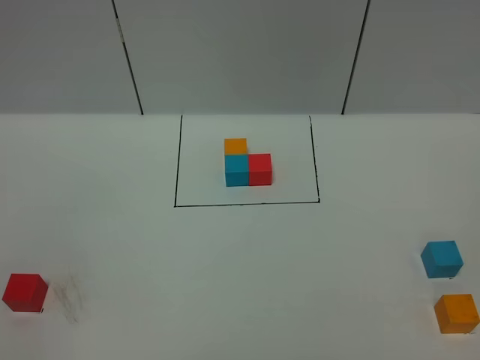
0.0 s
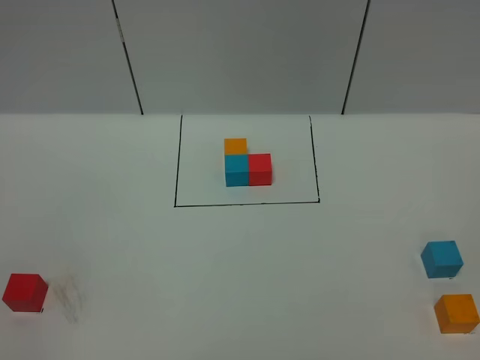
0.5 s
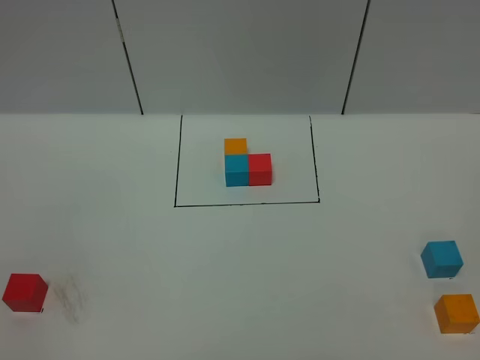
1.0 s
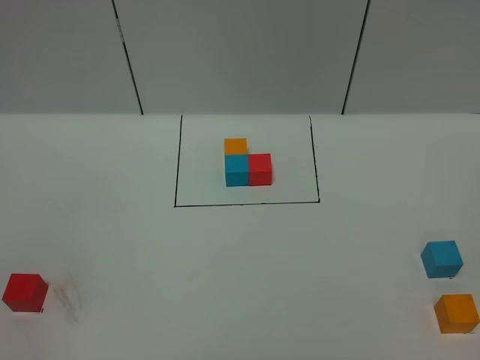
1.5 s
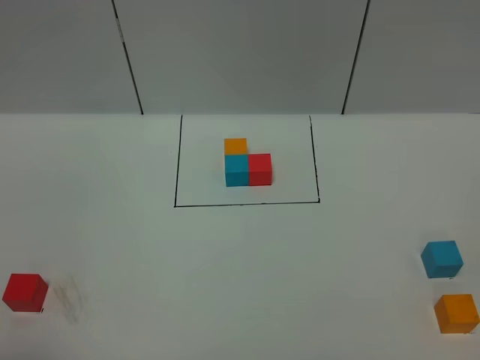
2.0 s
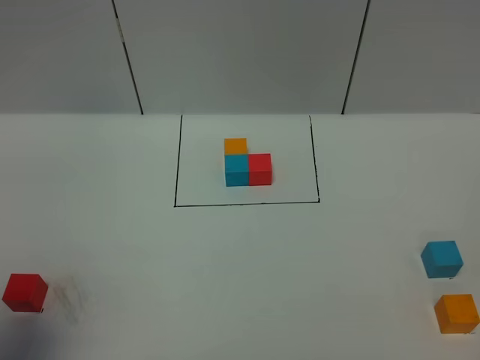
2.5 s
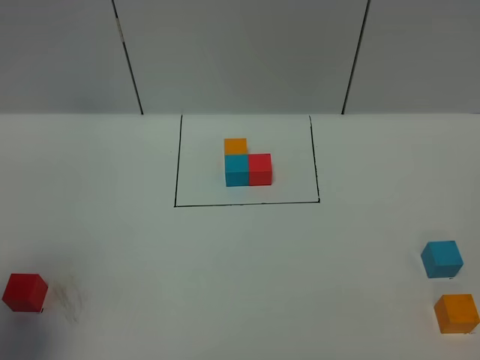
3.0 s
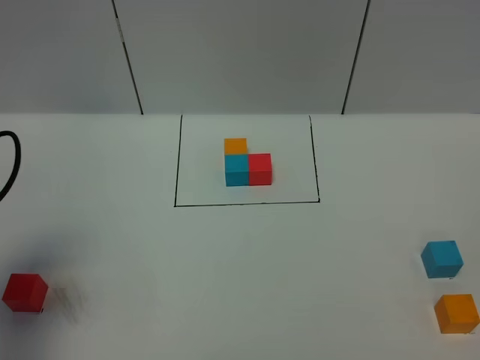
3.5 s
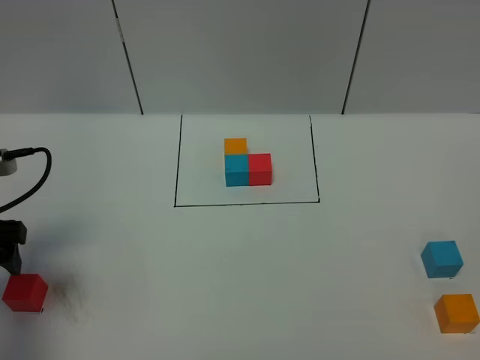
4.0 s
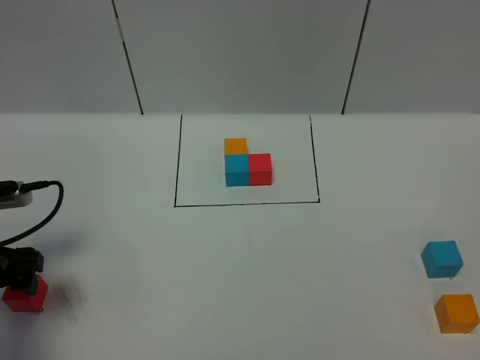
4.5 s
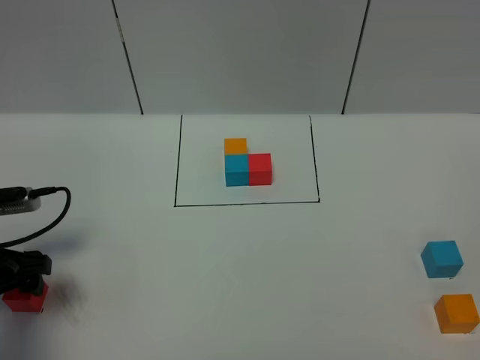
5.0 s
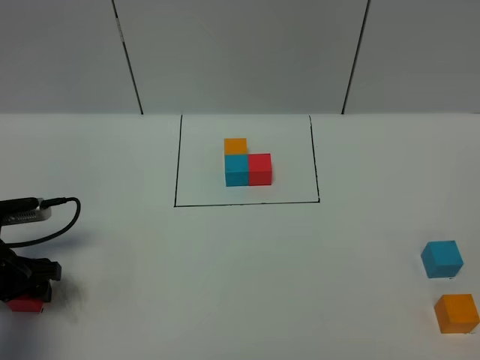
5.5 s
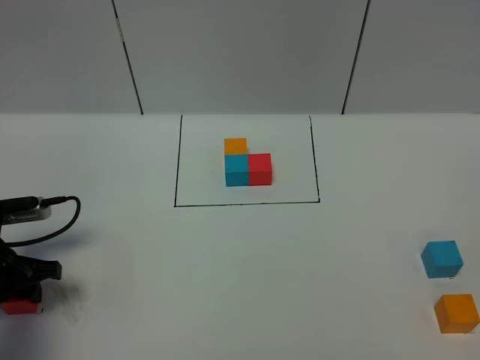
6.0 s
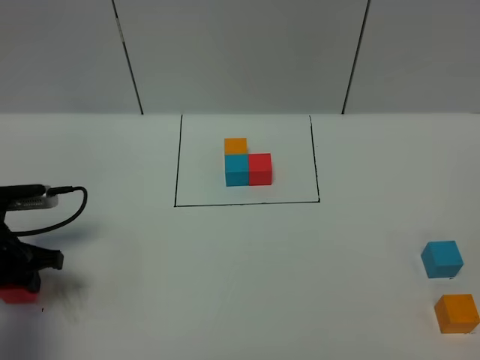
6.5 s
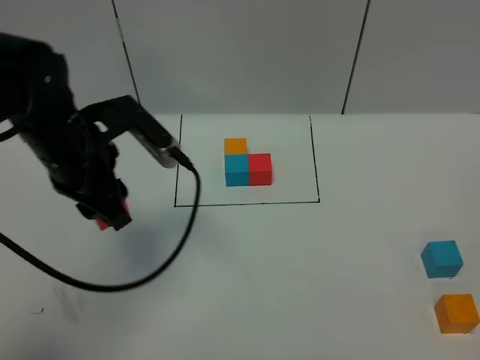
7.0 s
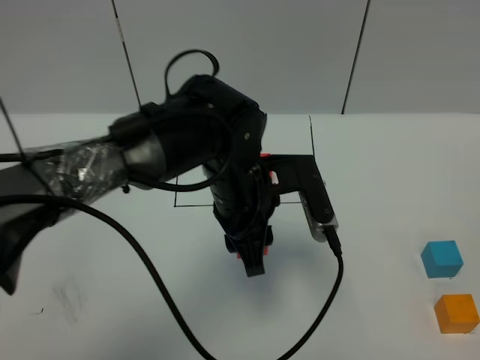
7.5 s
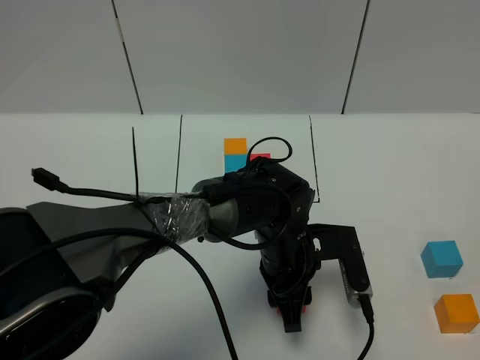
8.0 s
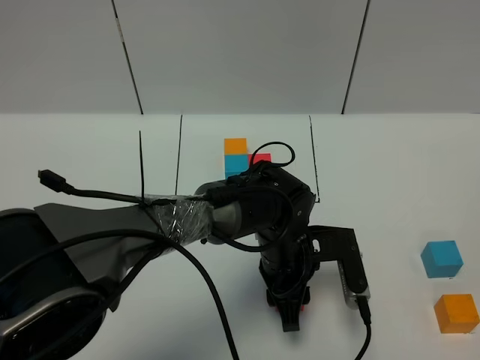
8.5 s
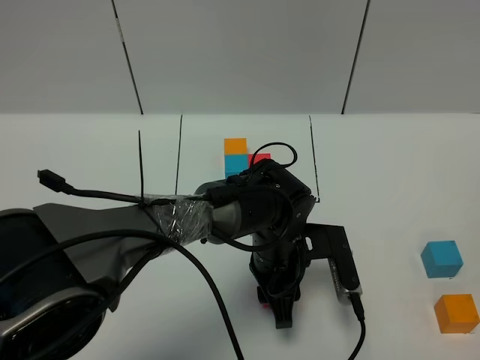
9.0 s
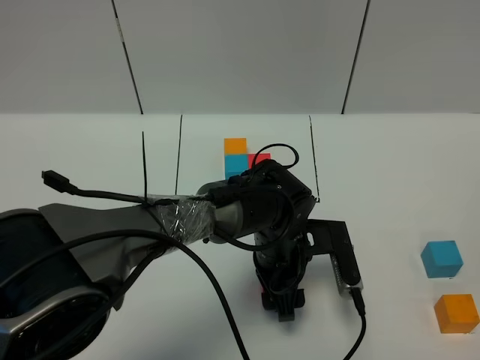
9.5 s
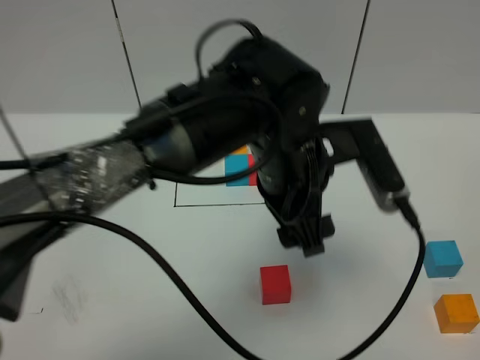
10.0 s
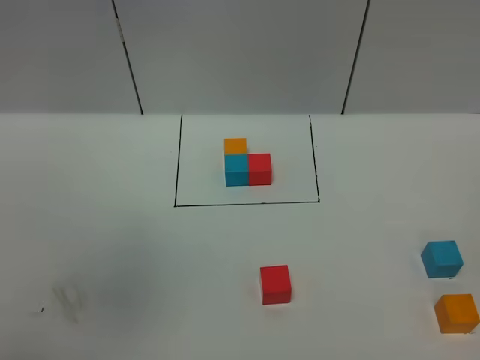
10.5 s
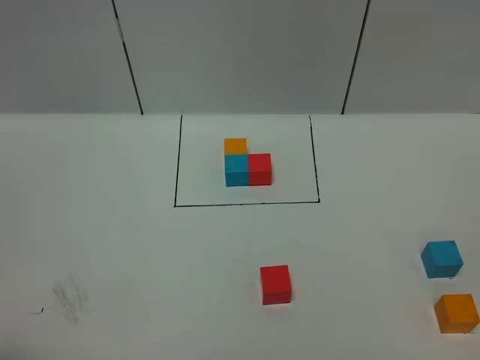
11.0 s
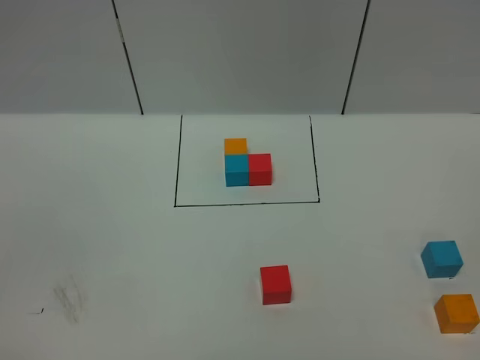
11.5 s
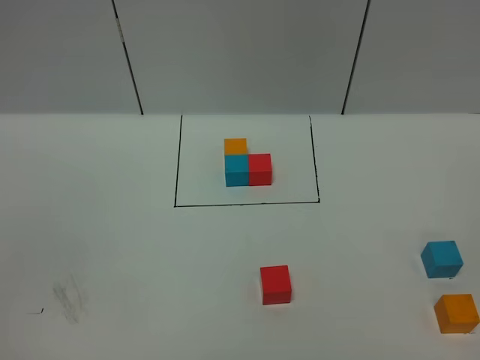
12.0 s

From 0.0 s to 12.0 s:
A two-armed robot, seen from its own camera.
Task of the whole recording: According to the building block template in front, assemble the scattered blocks together.
Step, from 3.0 s to 9.5 s: Put the red cube in the center of the table.
From 2.0 s to 4.0 s: The left gripper heads forward and downward, covering about 25 cm, and opens.
From 4.0 s to 6.0 s: The left gripper moves downward, approximately 10 cm, and closes its fingers.
From 6.0 s to 8.0 s: The left gripper is displaced to the right by about 35 cm.
From 8.0 s to 10.0 s: The left gripper travels upward by about 20 cm, and opens.
From 10.0 s to 12.0 s: The left gripper is displaced to the left and backward by roughly 50 cm.

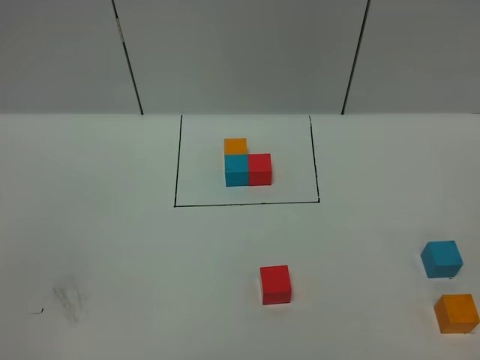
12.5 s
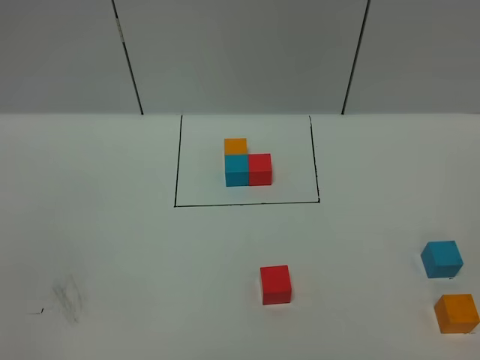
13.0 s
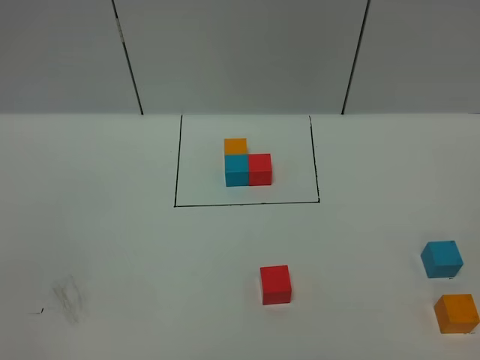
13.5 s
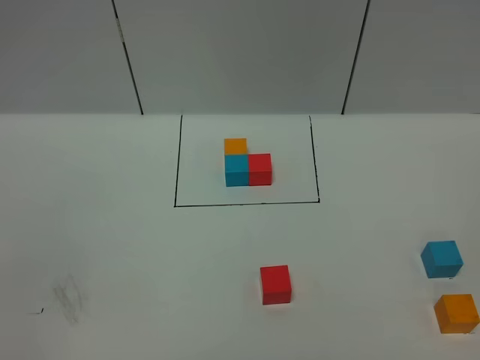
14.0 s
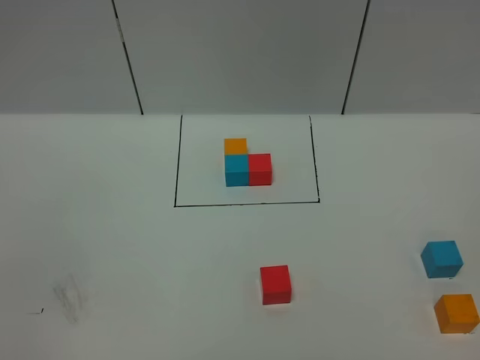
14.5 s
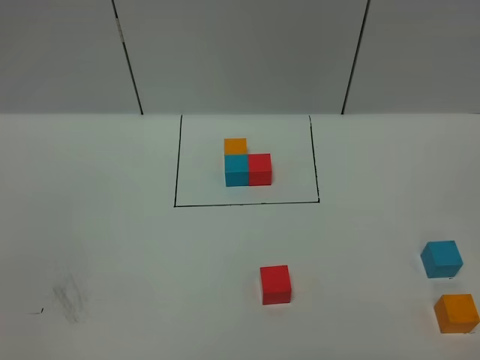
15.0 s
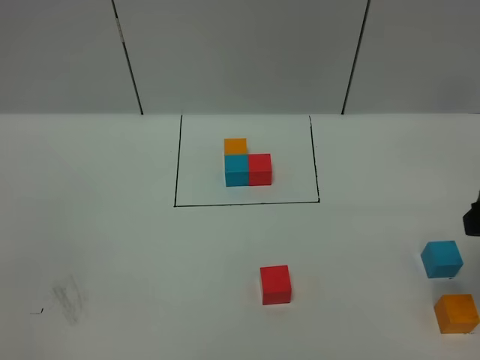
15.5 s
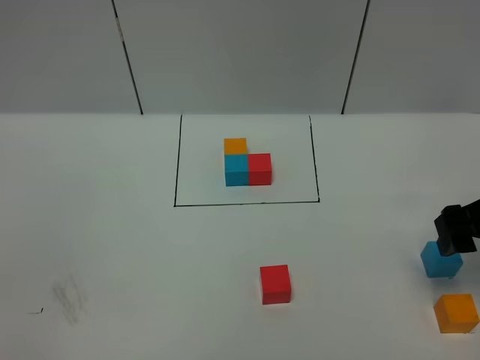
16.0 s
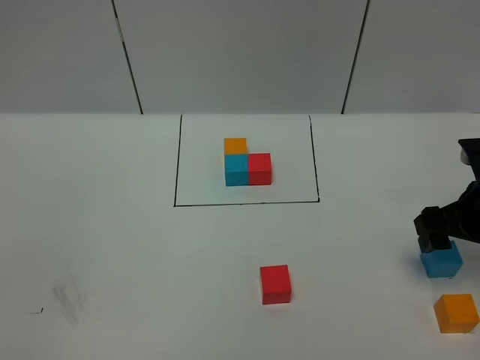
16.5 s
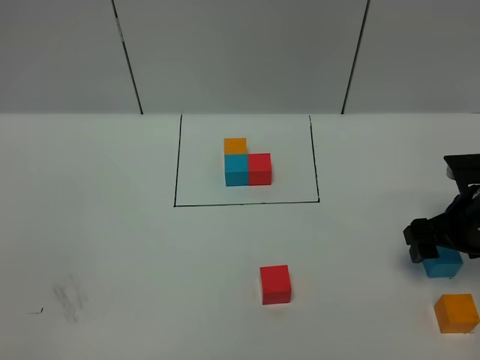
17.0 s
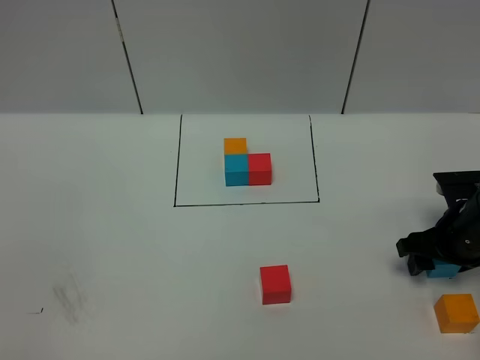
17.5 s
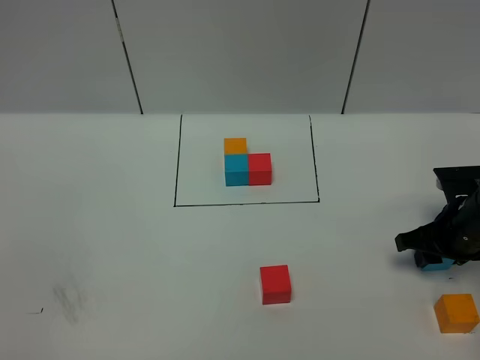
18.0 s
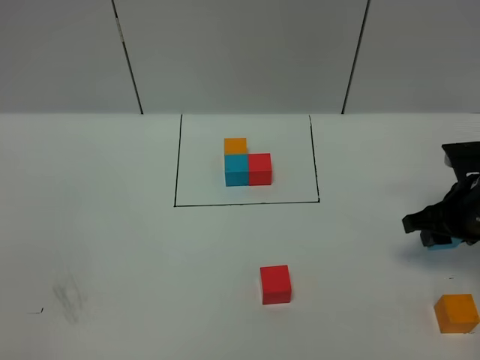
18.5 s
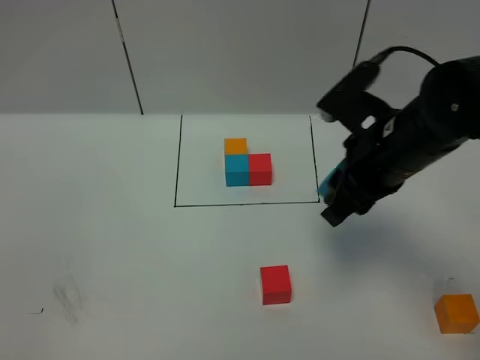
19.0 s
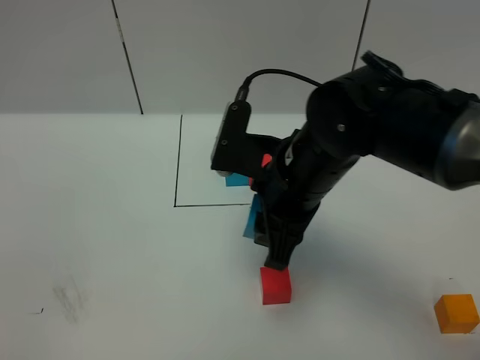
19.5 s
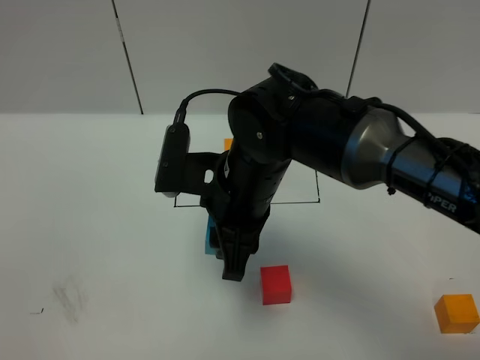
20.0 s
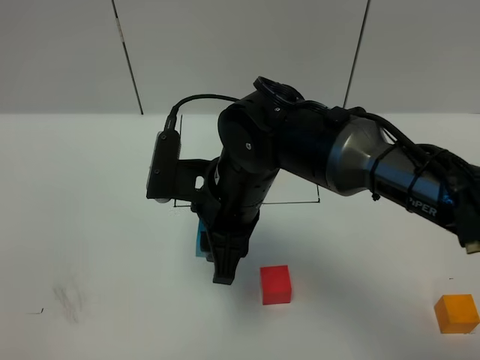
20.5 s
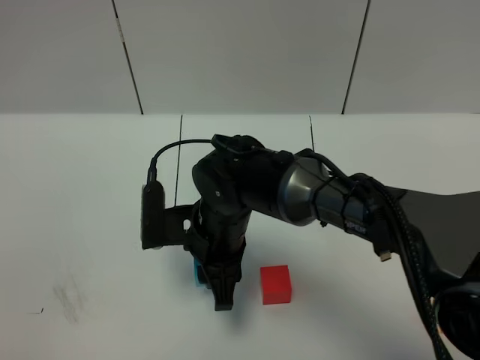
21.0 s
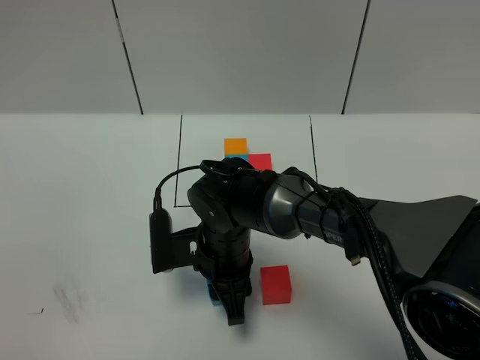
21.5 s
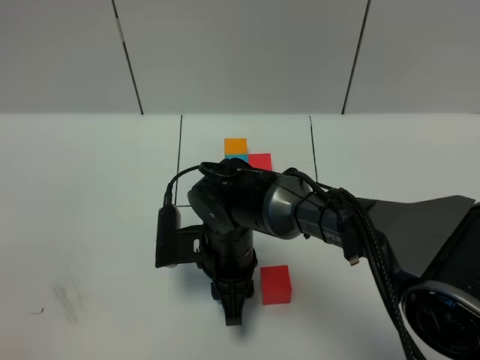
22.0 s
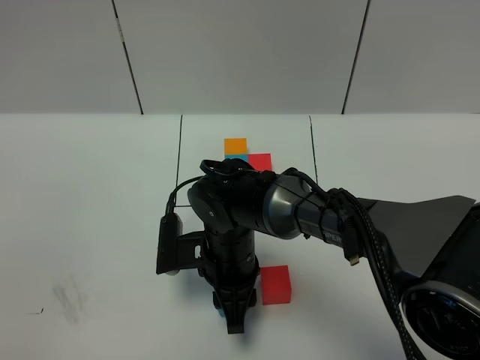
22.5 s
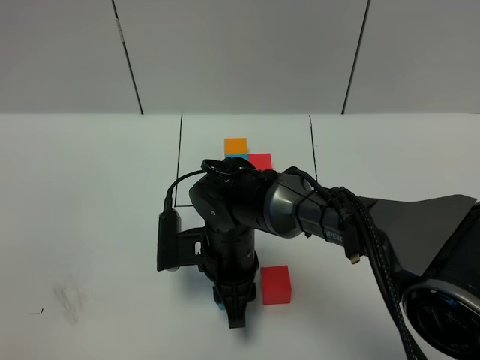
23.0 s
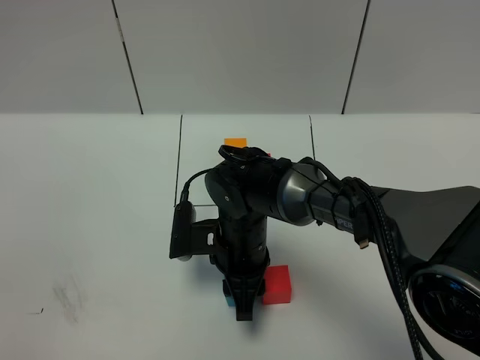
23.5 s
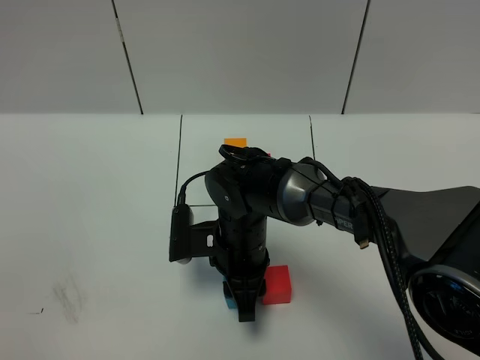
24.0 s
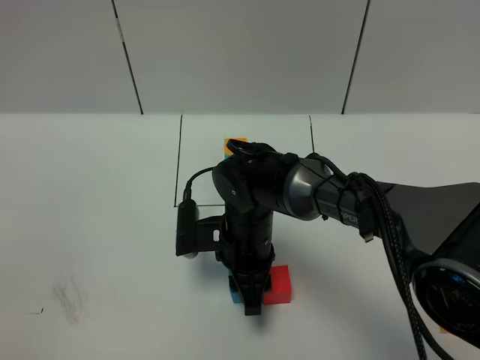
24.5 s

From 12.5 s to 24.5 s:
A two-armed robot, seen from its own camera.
Task of the whole recording: According to the building block template in front, assemble the scattered blocks together.
From 14.5 s to 16.5 s: The right gripper is displaced forward by some 30 cm.
From 16.5 s to 18.5 s: The right gripper closes.
From 18.5 s to 20.5 s: The right gripper travels to the left by approximately 30 cm.
From 20.5 s to 22.5 s: The right gripper is displaced downward by about 10 cm.
From 22.5 s to 24.5 s: There are only small adjustments of the grippers.

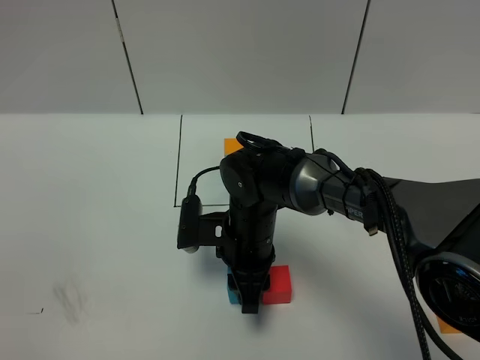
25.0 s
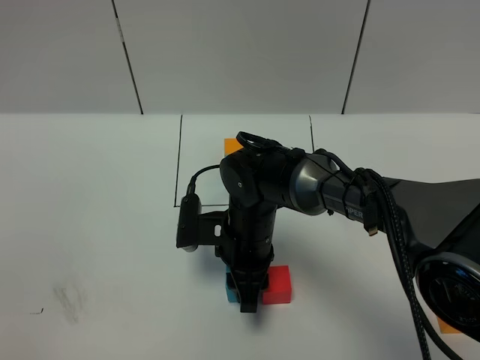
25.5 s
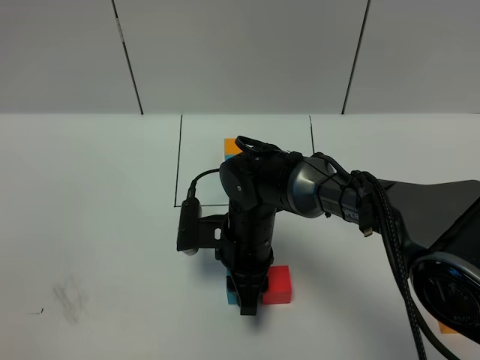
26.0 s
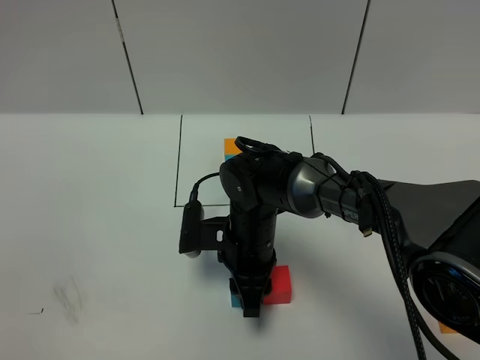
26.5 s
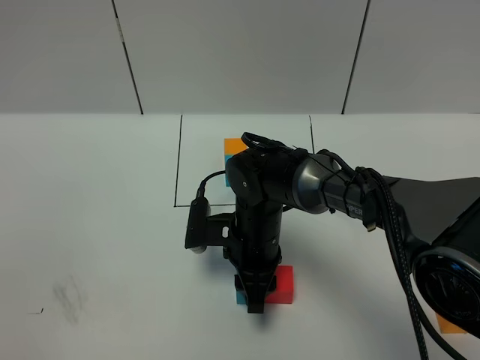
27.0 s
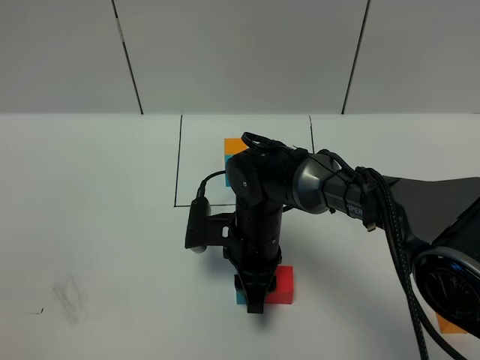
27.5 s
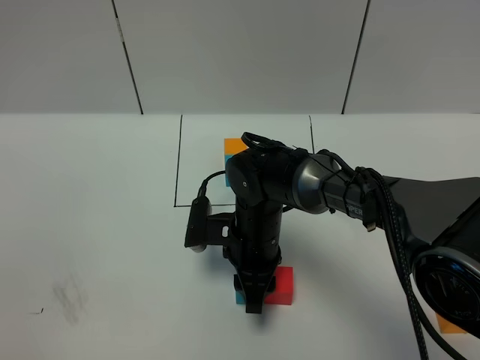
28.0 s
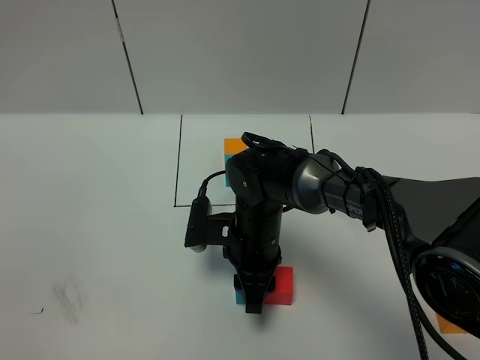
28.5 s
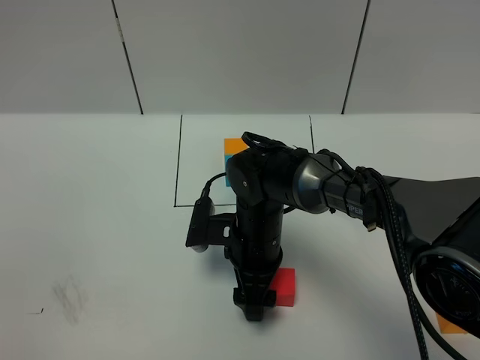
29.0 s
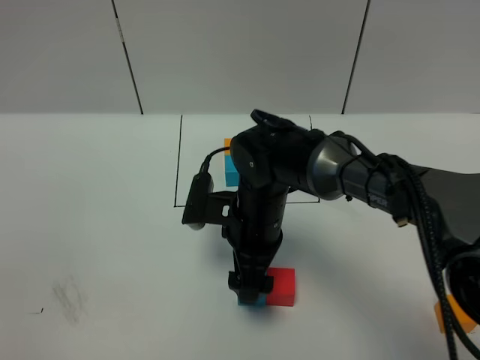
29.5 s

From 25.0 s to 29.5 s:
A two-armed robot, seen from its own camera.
Task of the whole recording: According to the building block template in front, assemble the scattered blocks together.
From 25.0 s to 27.0 s: The two grippers keep their place.
From 27.0 s to 29.5 s: The right gripper travels upward by approximately 5 cm, and opens.
